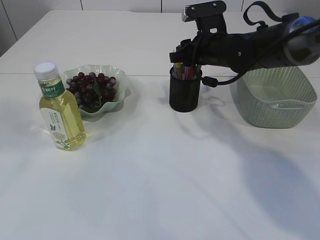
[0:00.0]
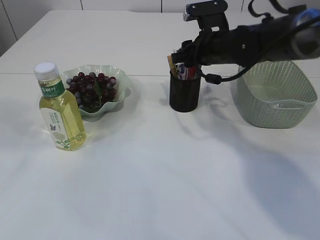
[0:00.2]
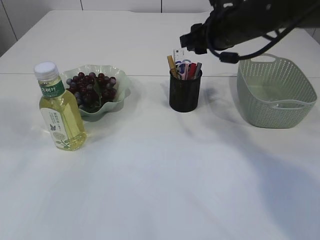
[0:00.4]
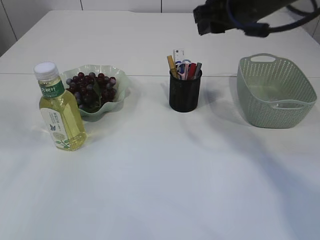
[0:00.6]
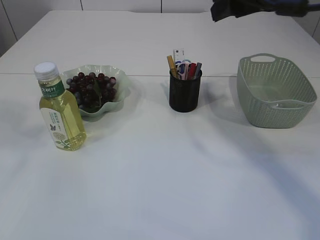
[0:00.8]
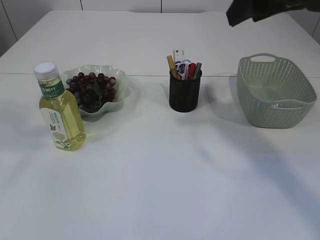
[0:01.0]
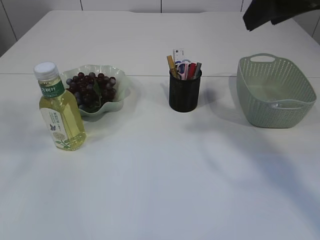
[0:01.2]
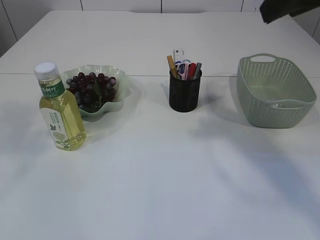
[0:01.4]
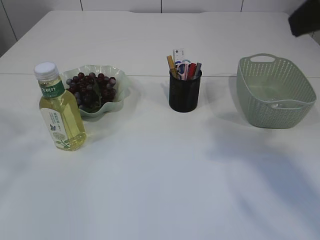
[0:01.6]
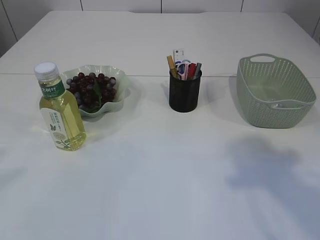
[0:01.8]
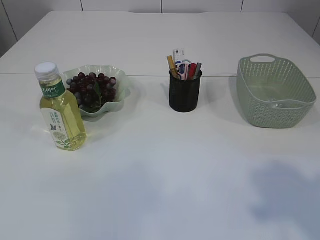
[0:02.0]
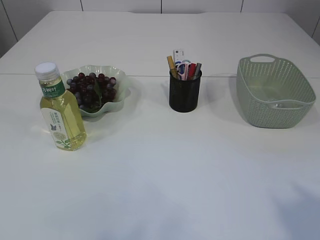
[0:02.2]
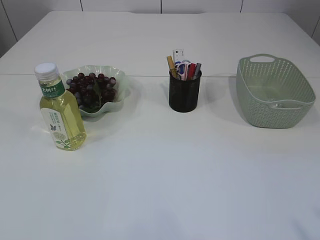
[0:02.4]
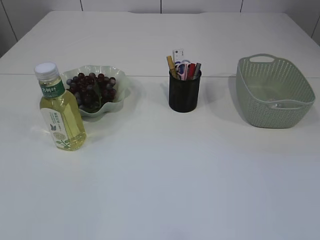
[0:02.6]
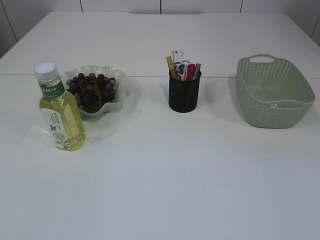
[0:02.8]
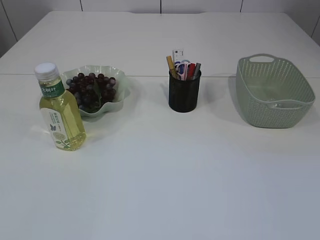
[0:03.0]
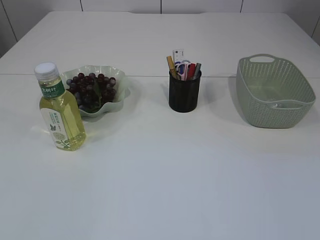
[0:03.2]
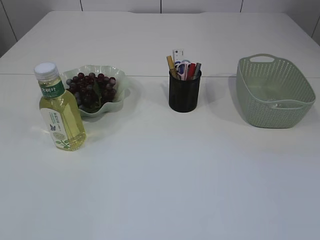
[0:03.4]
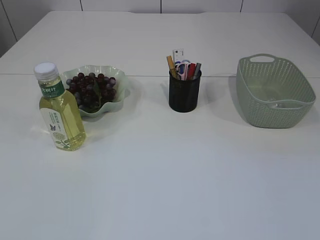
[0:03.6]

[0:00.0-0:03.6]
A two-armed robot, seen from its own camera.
0:00.0 to 0:01.8: The right gripper heads backward and upward, covering approximately 35 cm, while the left gripper heads backward, covering approximately 10 cm, and opens up.
0:01.8 to 0:03.6: The right gripper travels backward and downward by approximately 20 cm.
